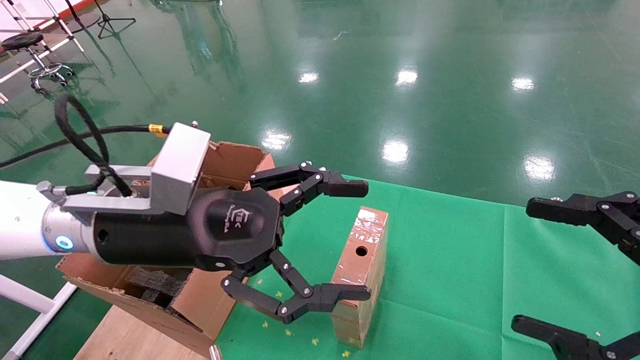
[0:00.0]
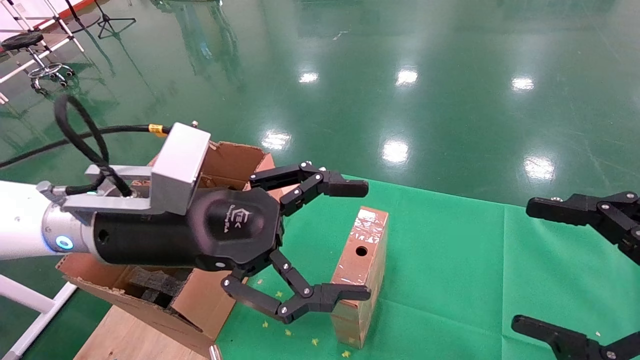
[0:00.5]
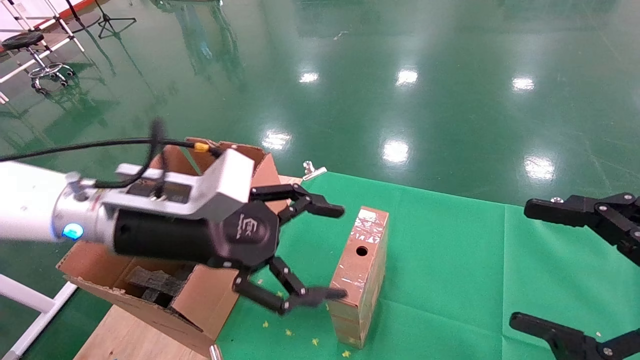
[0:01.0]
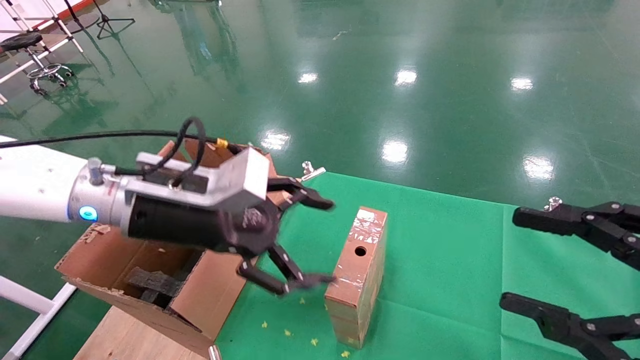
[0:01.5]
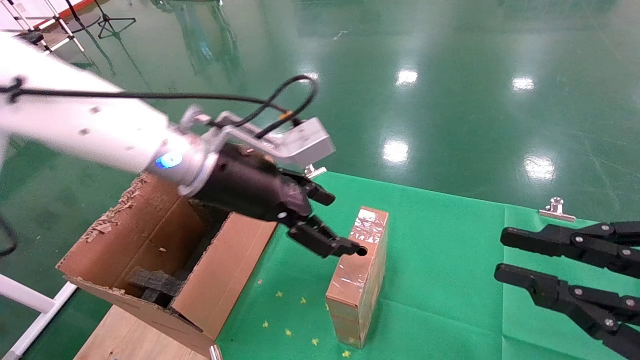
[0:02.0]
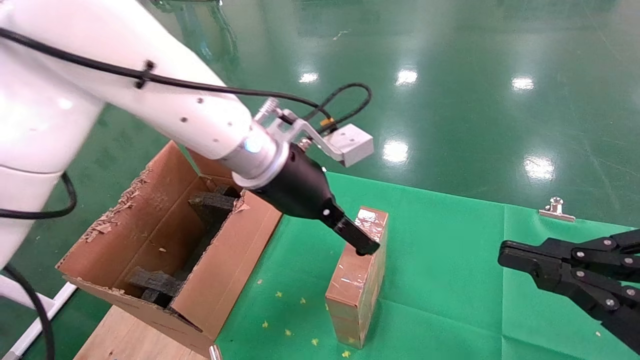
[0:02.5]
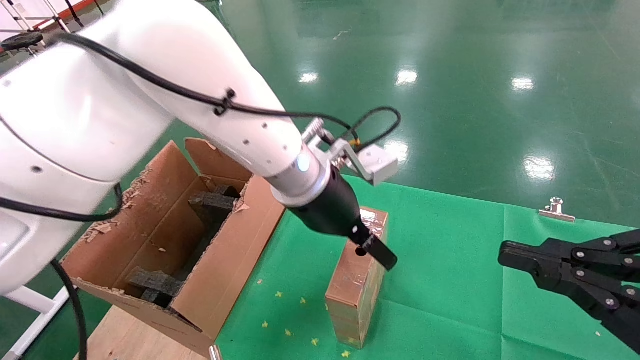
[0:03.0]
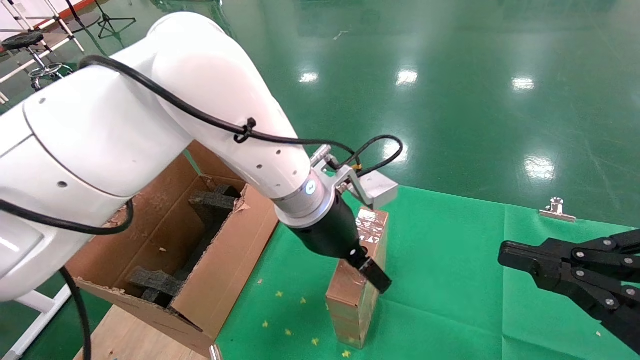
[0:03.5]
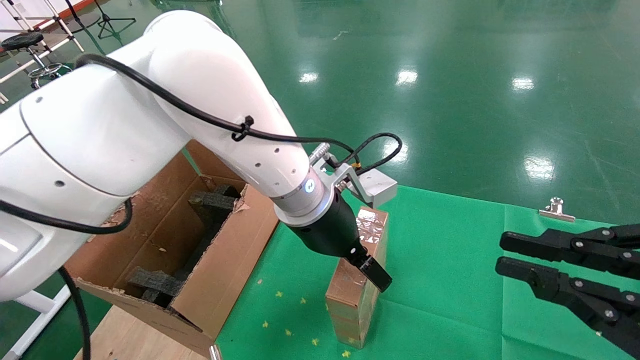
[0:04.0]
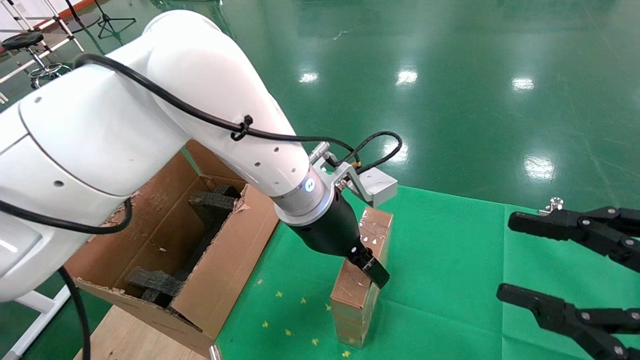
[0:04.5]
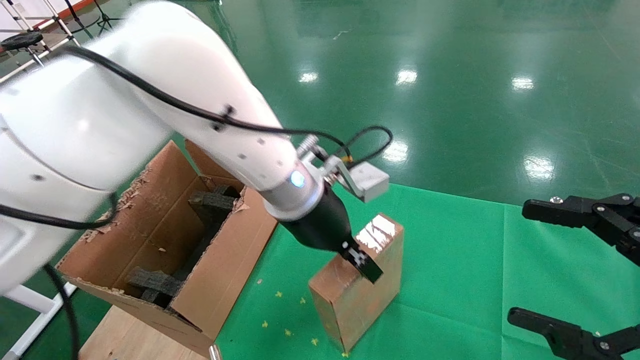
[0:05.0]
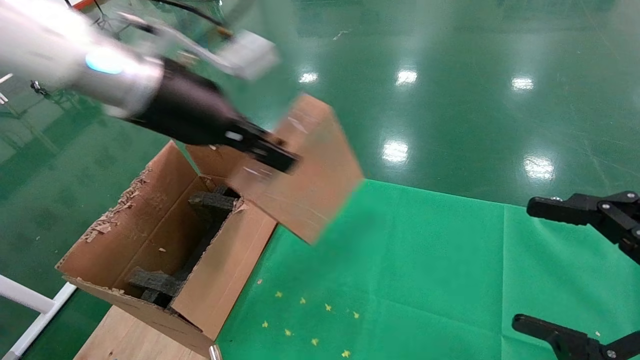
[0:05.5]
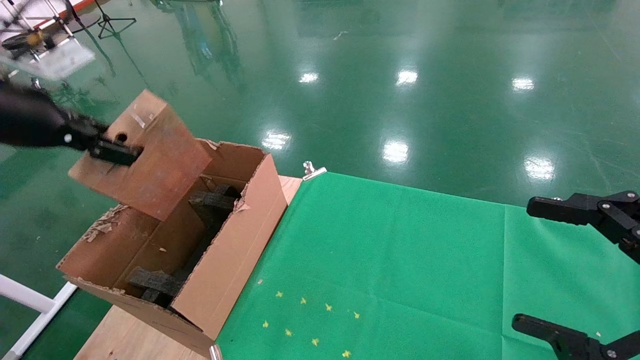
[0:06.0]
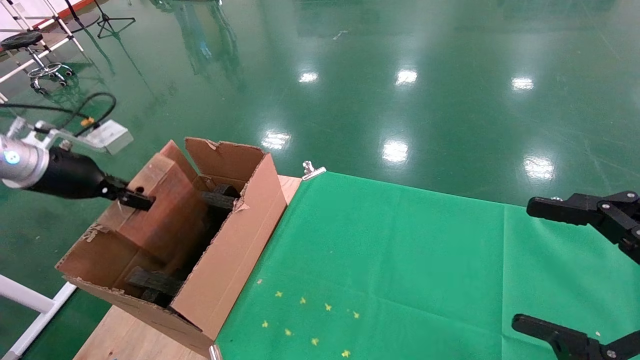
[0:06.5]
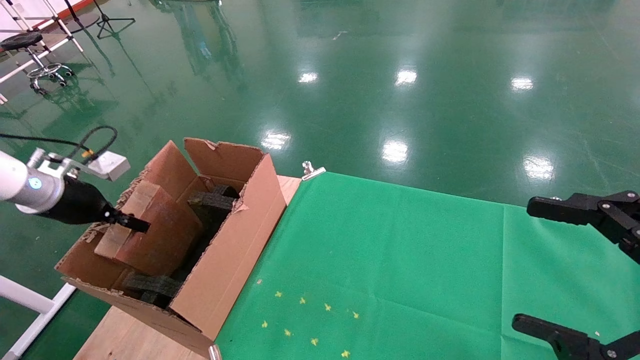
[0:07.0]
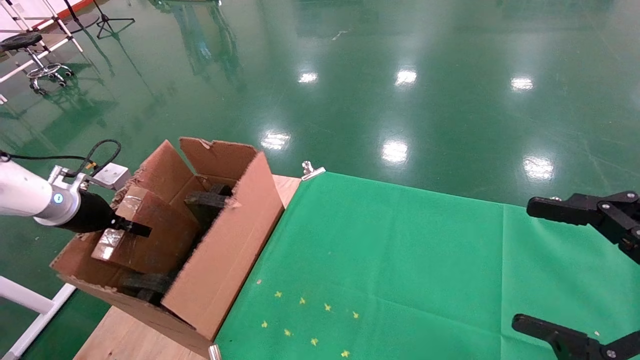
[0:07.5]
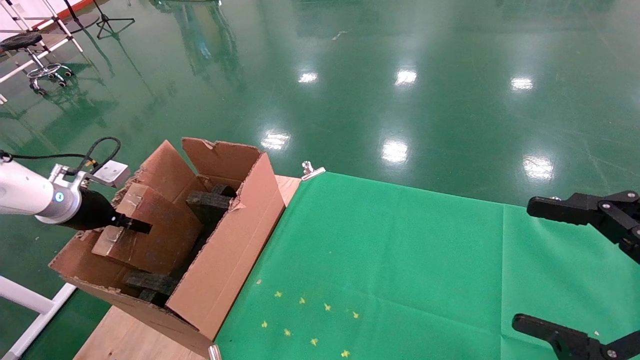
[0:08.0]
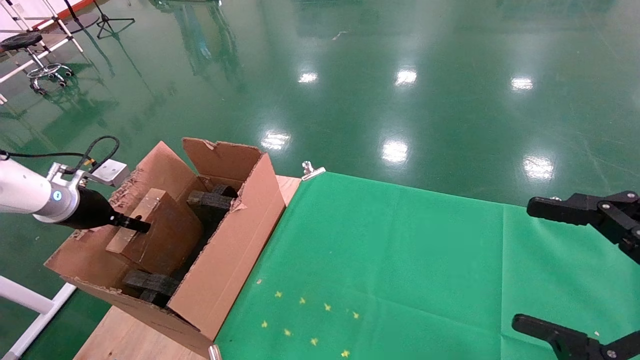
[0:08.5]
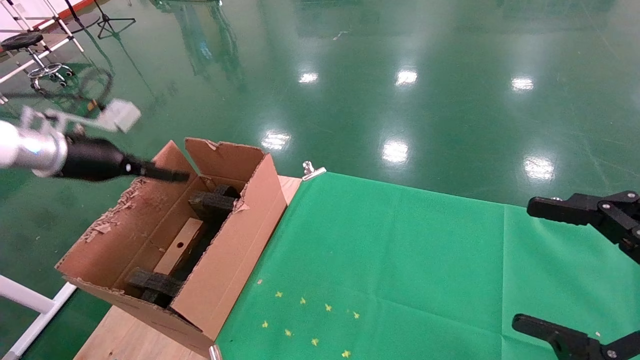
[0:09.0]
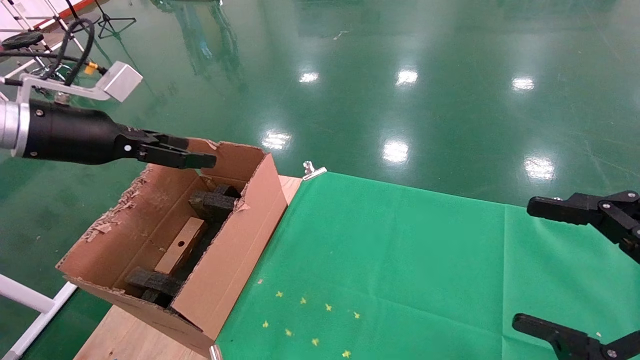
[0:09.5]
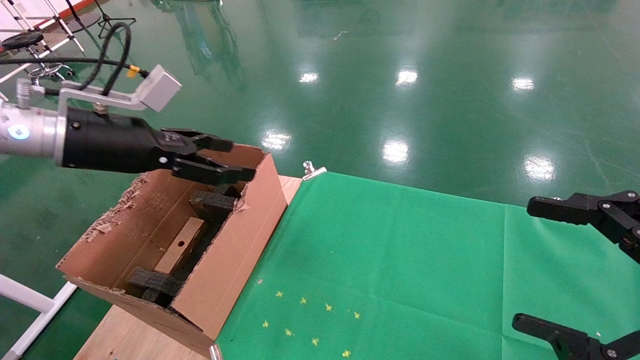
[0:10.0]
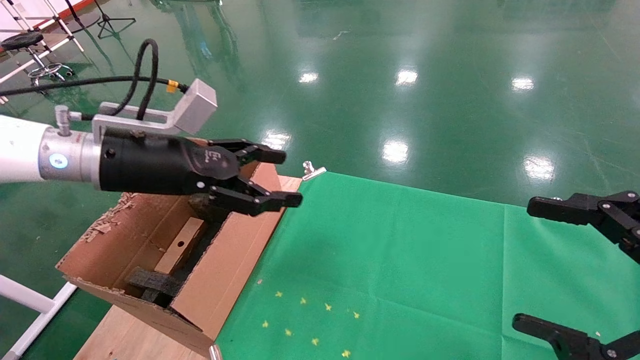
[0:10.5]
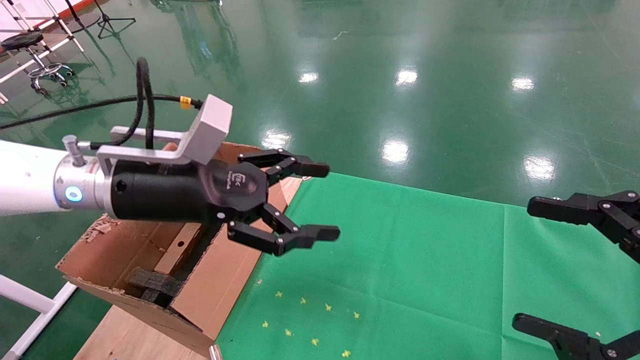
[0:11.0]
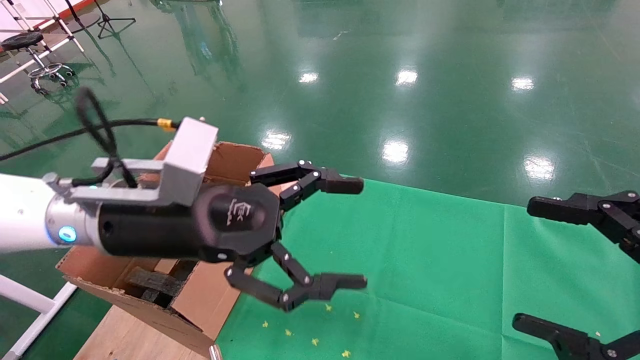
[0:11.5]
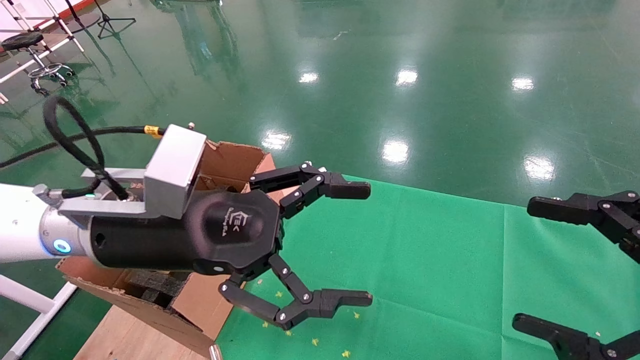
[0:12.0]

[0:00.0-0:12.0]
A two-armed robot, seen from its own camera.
Task of the whole recording: using a robotic arm to pick up a cardboard box and palace it the carton.
Step, 0:01.0 to 0:04.5: Pick up the mouse and the power cord paper box.
Step, 0:05.0 to 0:08.0: Place the mouse and the power cord paper box into the container.
0:00.0 to 0:02.0: The left gripper heads forward, covering approximately 10 cm. Meanwhile the right gripper closes its fingers.
0:02.0 to 0:04.0: The left gripper heads to the right, covering roughly 10 cm.
0:04.0 to 0:06.0: The left gripper goes some 30 cm to the left, and closes its fingers. The right gripper opens.
0:06.0 to 0:08.0: The left gripper moves downward, to the left and forward, about 25 cm.
0:08.0 to 0:10.0: The left gripper shifts roughly 20 cm to the right and upward, and opens up.
0:10.0 to 0:12.0: The left gripper goes roughly 15 cm to the right and backward.

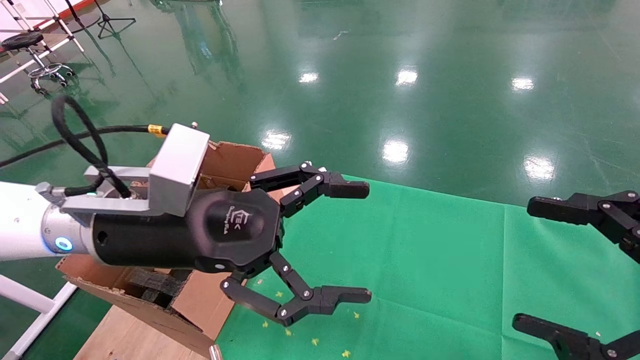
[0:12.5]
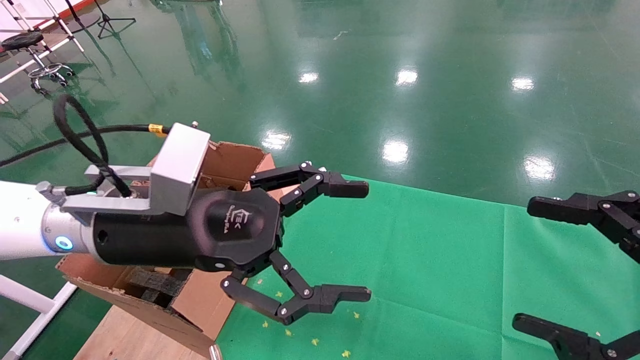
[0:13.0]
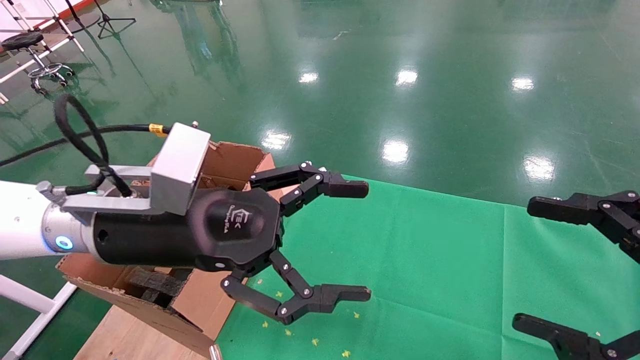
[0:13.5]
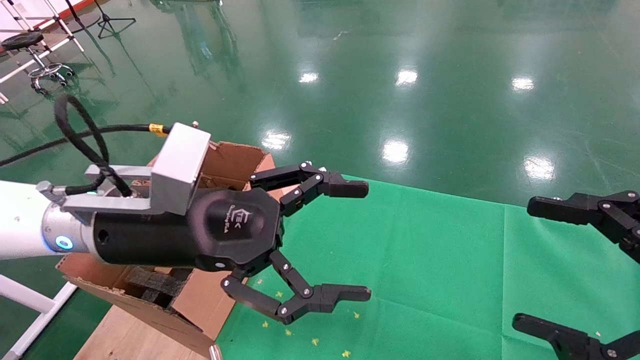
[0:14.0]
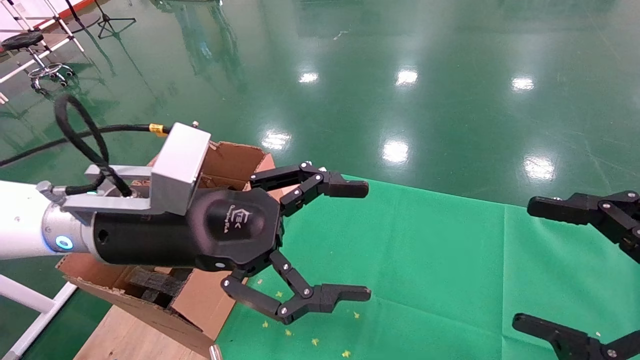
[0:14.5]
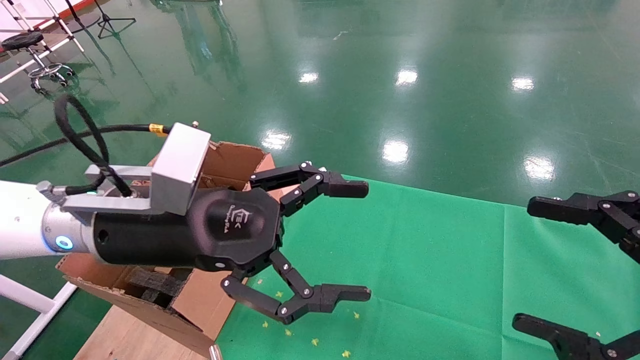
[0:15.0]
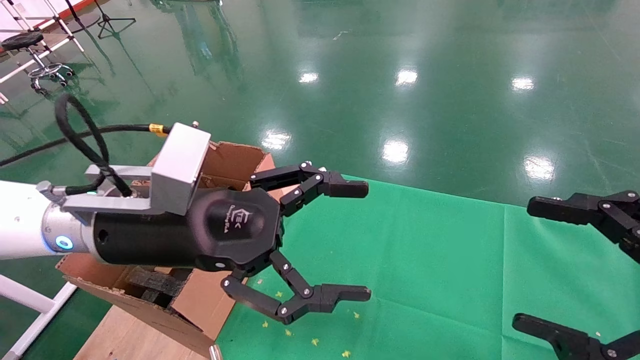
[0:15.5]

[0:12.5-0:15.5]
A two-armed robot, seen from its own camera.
Task of the whole recording: using a robotic arm to pick up a cardboard box and palace it the carton.
0:12.5 to 0:15.5: Neither gripper changes place.
